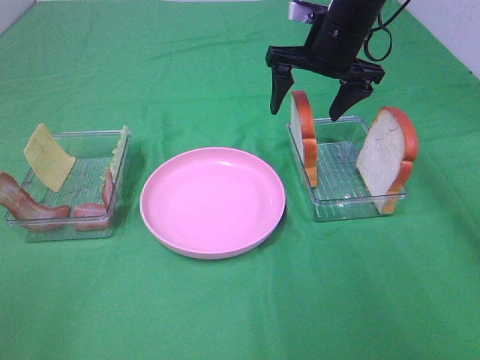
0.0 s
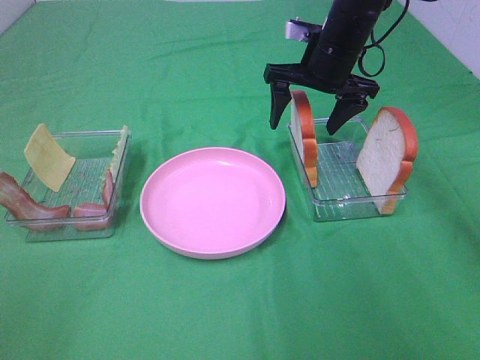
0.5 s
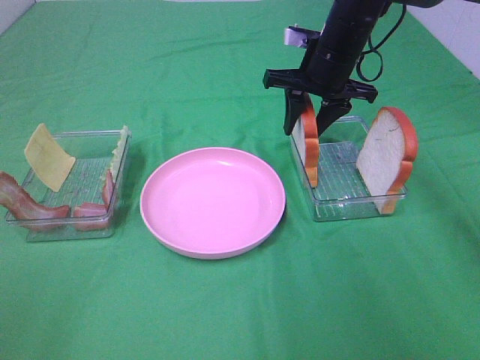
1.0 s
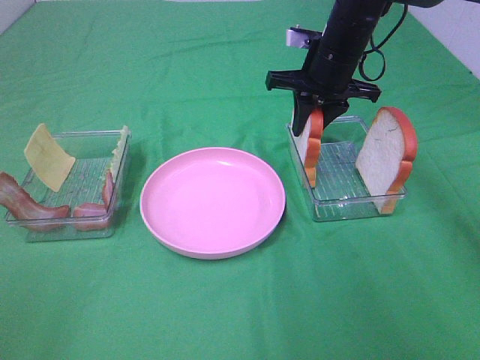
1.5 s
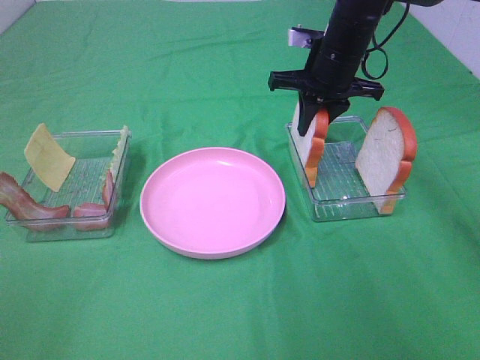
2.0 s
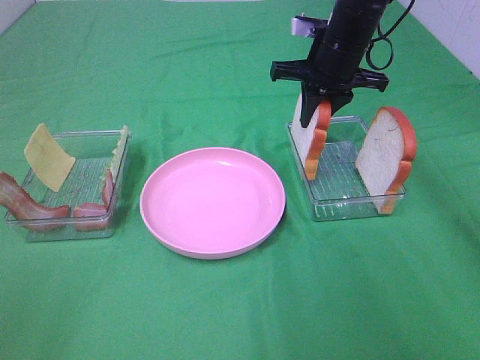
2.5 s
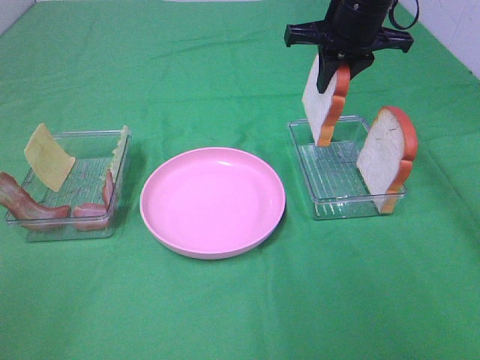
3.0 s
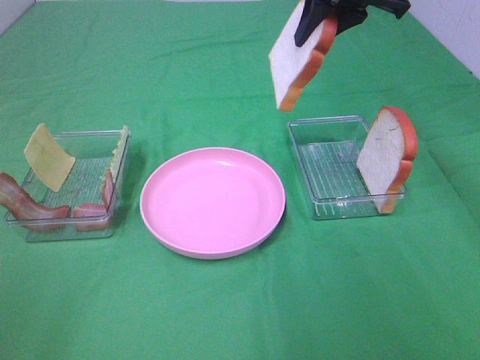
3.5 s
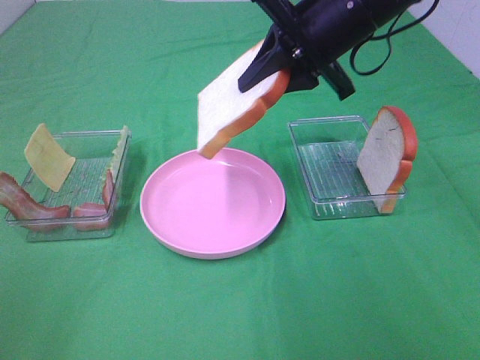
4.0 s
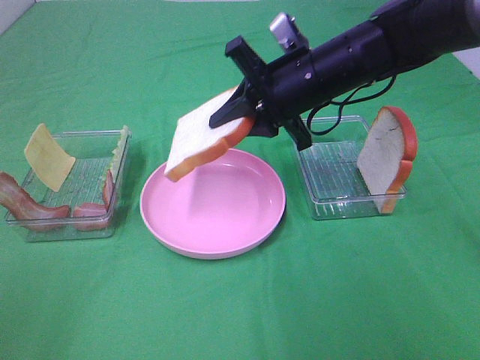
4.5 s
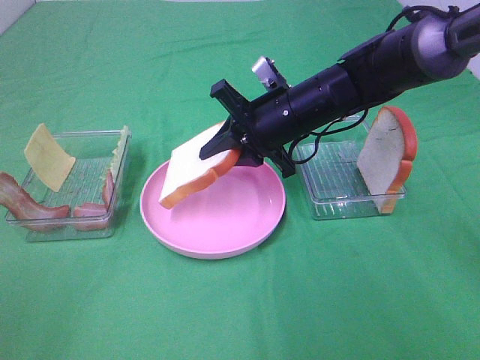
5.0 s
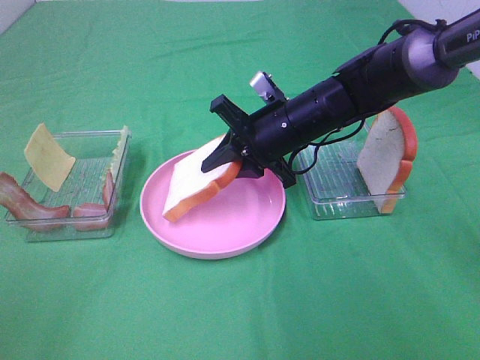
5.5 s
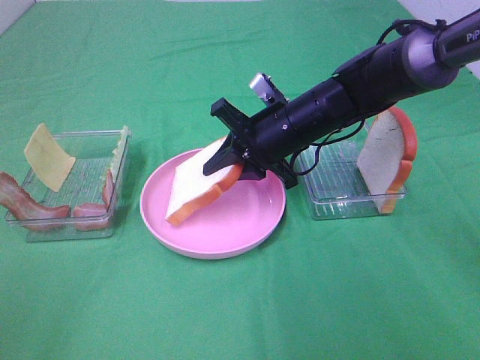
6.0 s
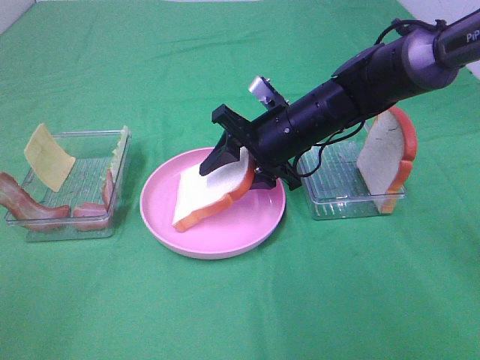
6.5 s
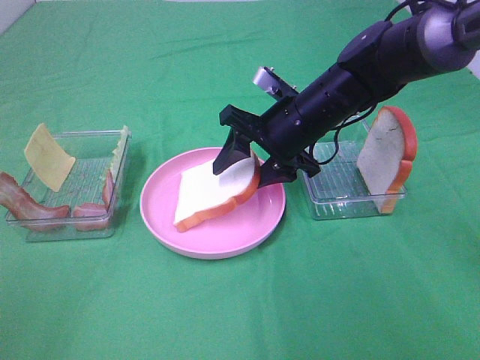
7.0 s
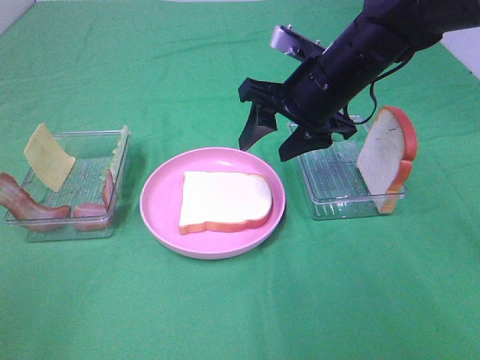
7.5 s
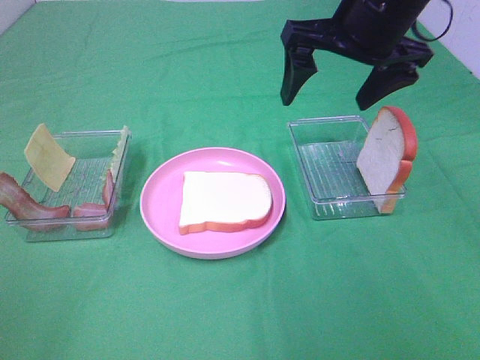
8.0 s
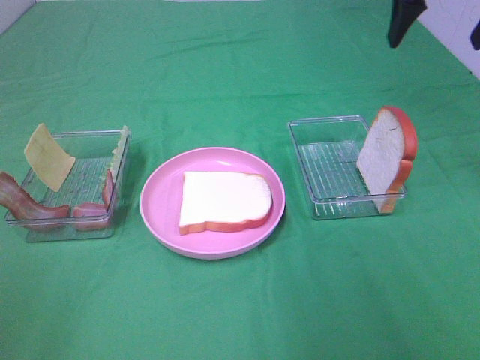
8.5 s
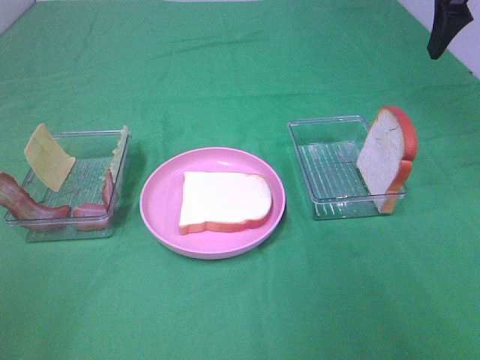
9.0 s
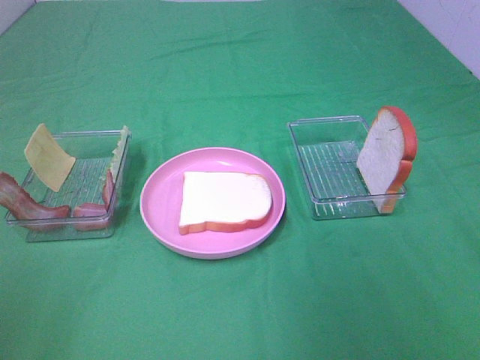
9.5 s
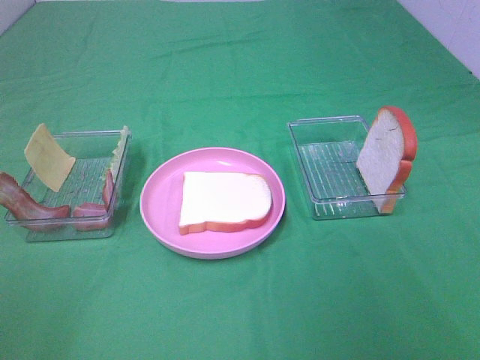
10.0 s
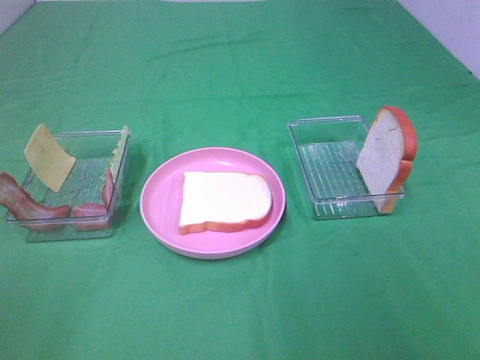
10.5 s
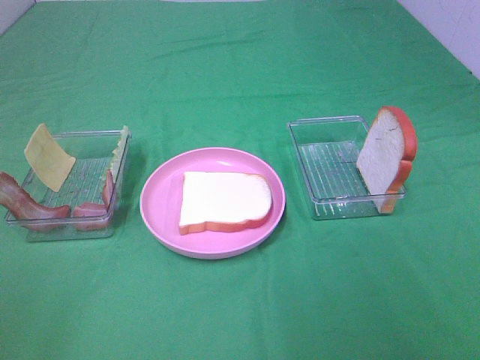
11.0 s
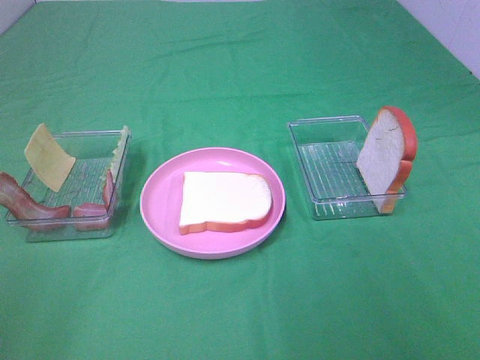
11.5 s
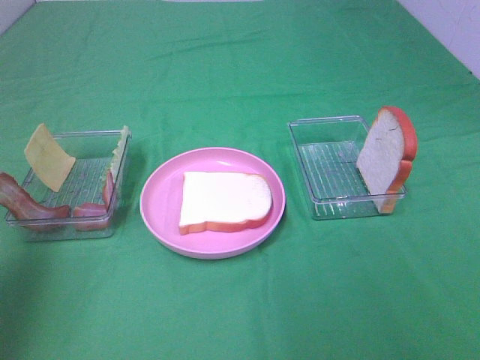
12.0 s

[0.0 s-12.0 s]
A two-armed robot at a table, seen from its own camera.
Task of the whole recording: Make sandwiches.
Step, 0.0 to 2.0 s: Right hand:grab the bread slice.
Step, 2.5 to 7.0 s: Right hand:place the bread slice on the plate.
0.0 to 2.0 s: The right gripper closes its fingers.
2.0 to 4.0 s: The right gripper moves backward and upward, some 10 cm.
4.0 to 6.0 s: The right gripper shifts roughly 15 cm downward.
6.0 to 8.0 s: The right gripper goes some 15 cm upward, and opens up.
8.0 to 10.0 s: The right gripper heads backward and to the right, covering some 35 cm.
10.0 to 12.0 s: The left gripper goes roughly 20 cm forward.

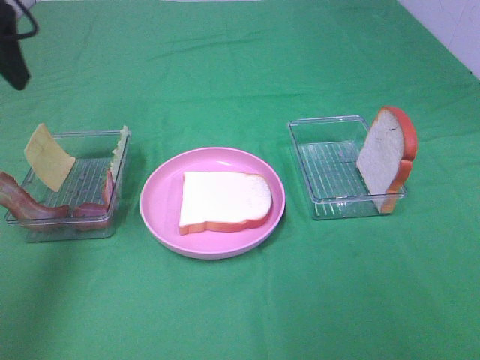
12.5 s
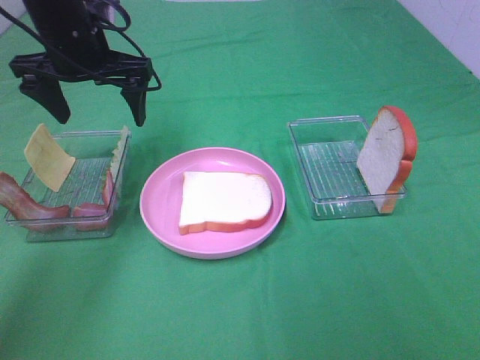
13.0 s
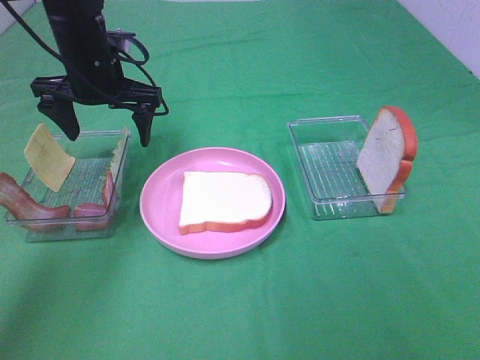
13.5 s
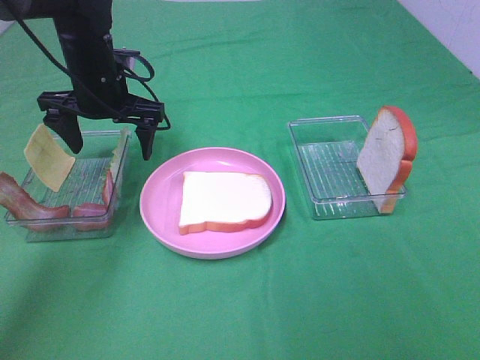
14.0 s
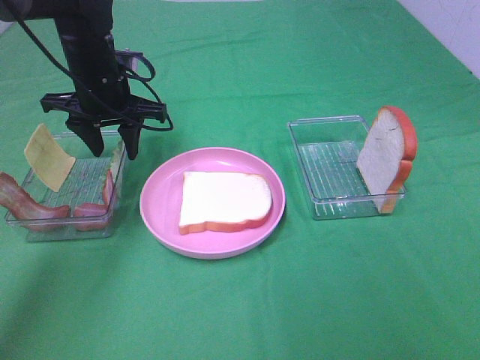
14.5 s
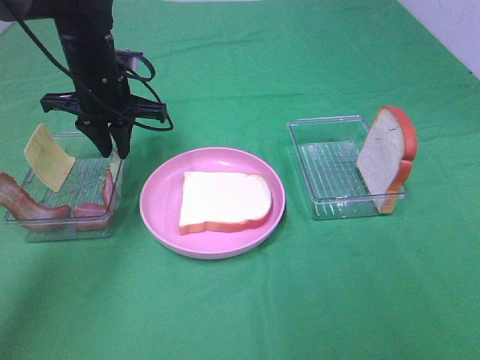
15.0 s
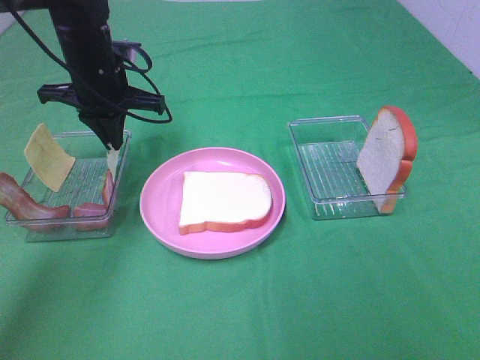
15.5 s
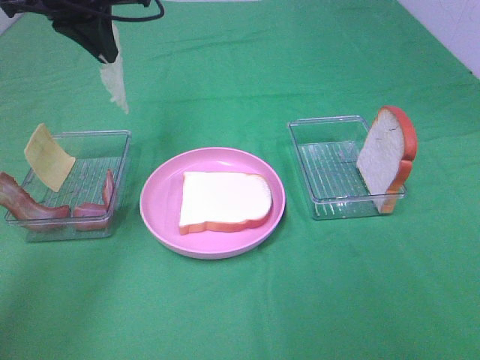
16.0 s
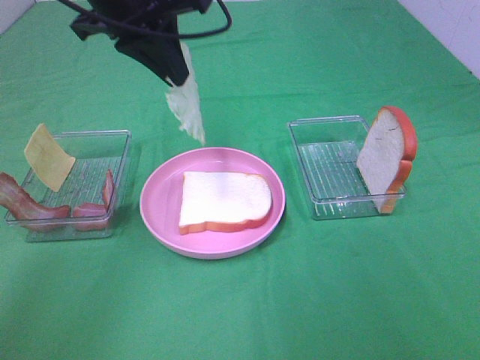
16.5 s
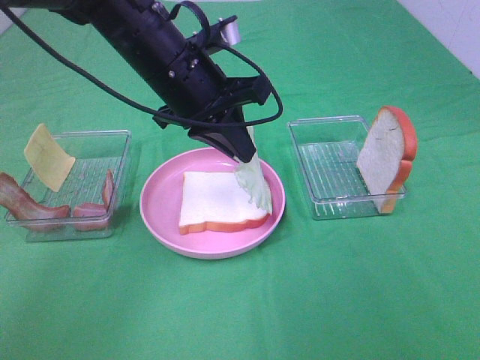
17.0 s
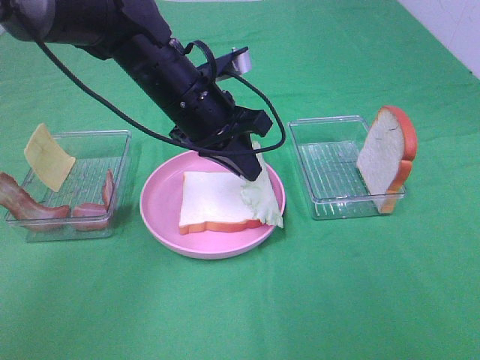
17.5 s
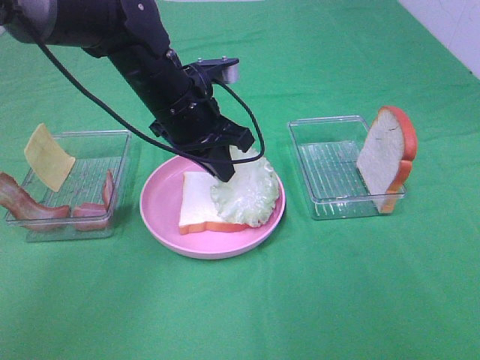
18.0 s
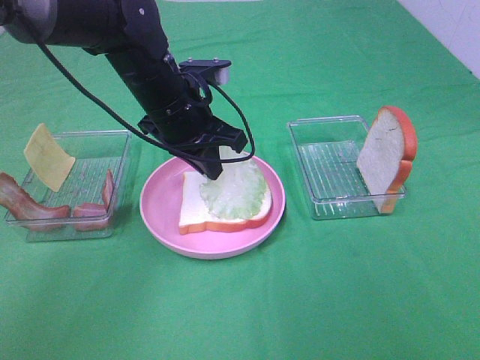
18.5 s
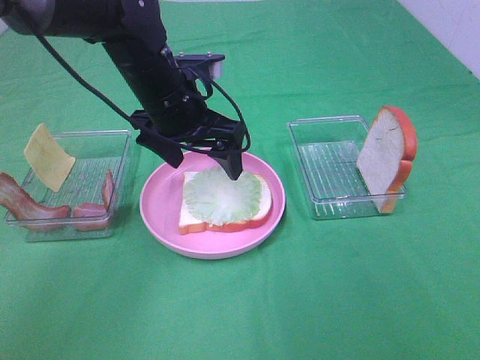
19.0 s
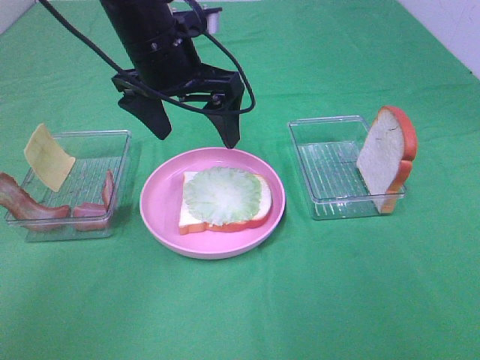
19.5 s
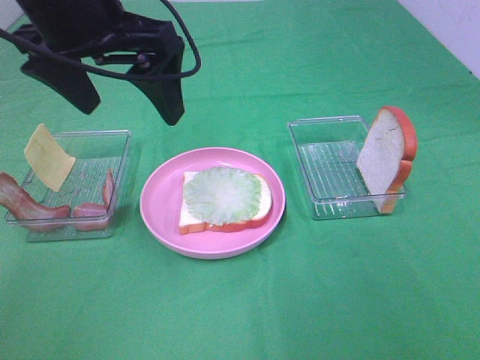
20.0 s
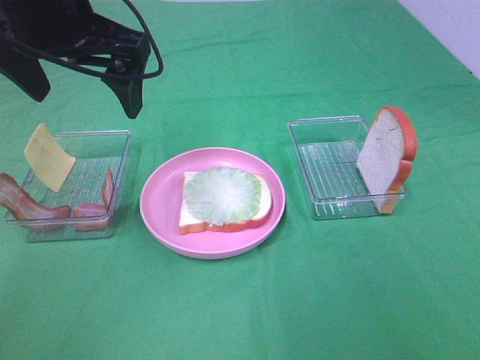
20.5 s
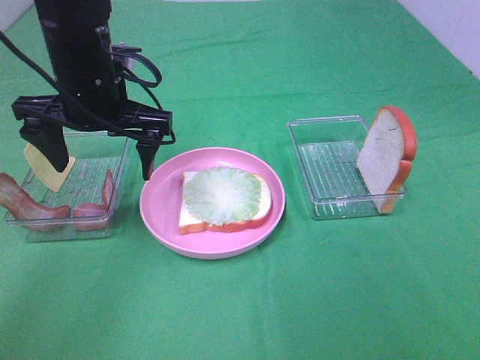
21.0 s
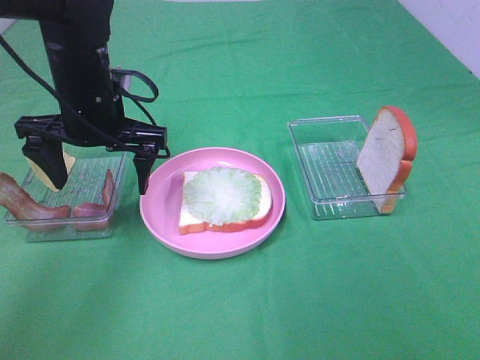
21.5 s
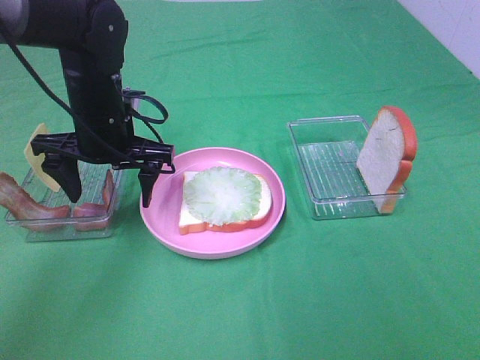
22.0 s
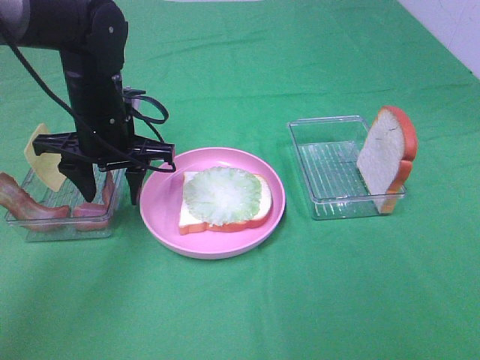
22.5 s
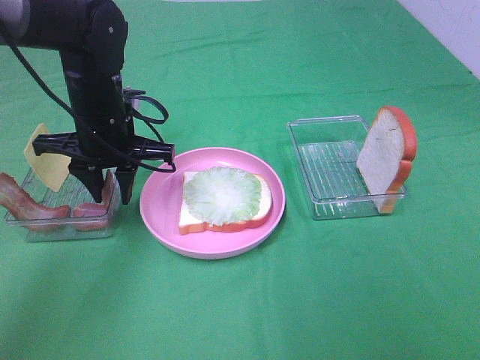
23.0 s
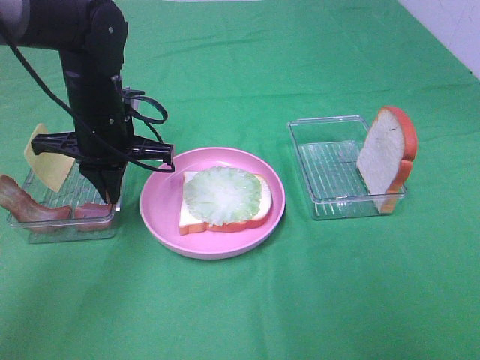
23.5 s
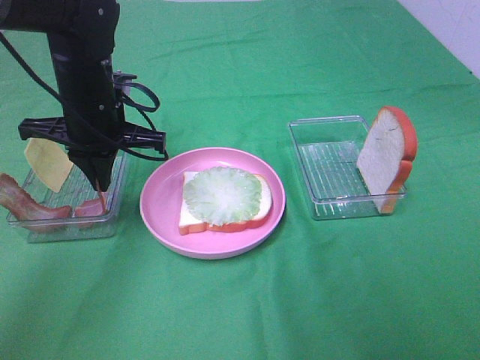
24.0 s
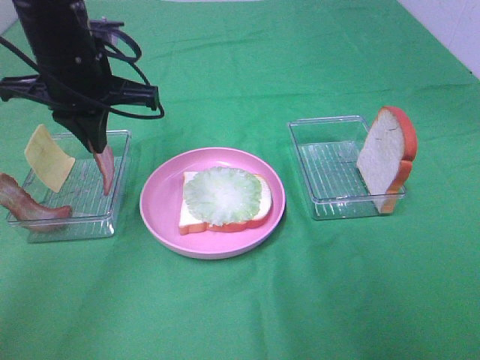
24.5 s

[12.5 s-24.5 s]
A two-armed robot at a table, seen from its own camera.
Task of the whole recording: Make sandwiches.
Step, 12.5 to 15.0 s: Left hand:grab the lettuce slice.
Step, 15.5 to 19.0 s: Left hand:place the lettuce slice on the bread slice.
Step, 19.5 to 23.5 s: Left hand:grab the bacon.
12.5 to 14.5 s: The left gripper moves downward, forward and to the right, about 20 cm, and closes its fingers.
14.5 to 16.5 s: The left gripper travels upward, backward and to the right by about 15 cm, and closes.
16.5 to 18.5 s: The left gripper moves downward, roughly 15 cm.
18.5 to 20.5 s: The left gripper shifts approximately 15 cm upward, to the left and backward, and opens up.
20.5 to 22.5 s: The left gripper is displaced downward by approximately 15 cm, and closes its fingers.
22.5 to 24.5 s: The left gripper moves upward, some 10 cm, and closes.

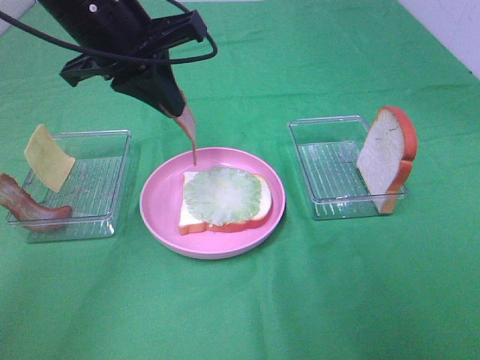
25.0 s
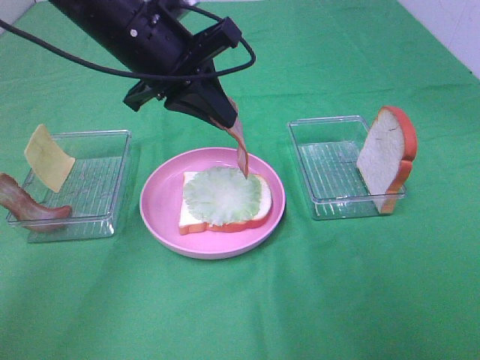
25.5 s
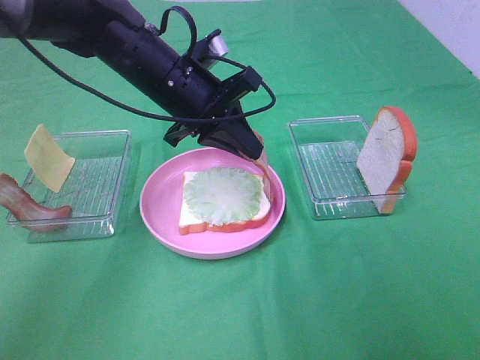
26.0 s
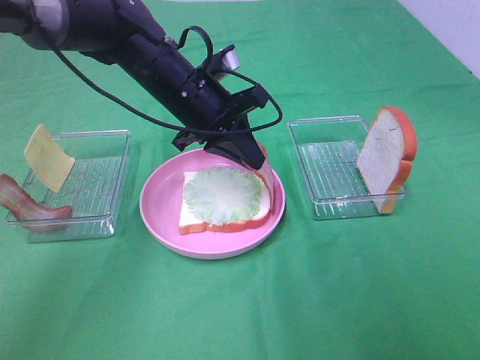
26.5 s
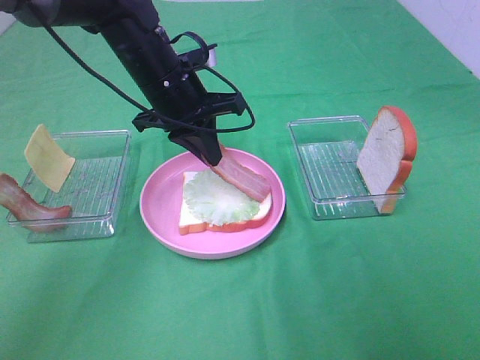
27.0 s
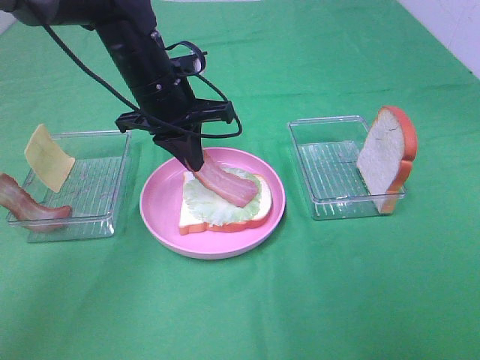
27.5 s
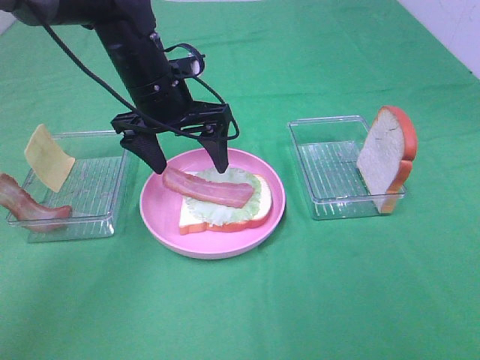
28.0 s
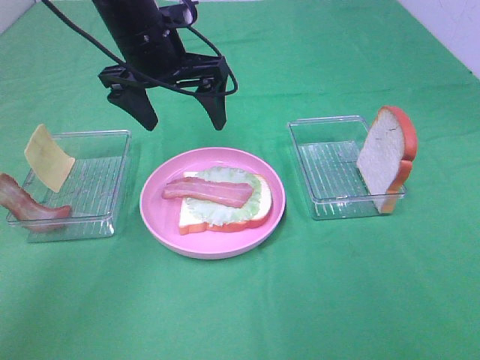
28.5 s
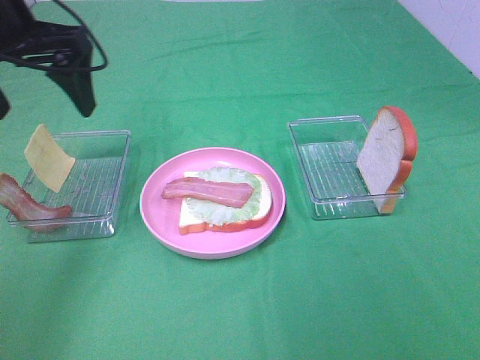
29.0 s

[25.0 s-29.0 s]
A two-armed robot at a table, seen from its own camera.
Task of the whole recording: Make sandwiches.
Step, 25.0 to 28.0 s: Left hand:place bacon on lettuce slice.
25.0 to 27.0 s: The left gripper goes roughly 10 cm downward and forward.
27.0 to 29.0 s: The left gripper goes about 20 cm to the left, upward and backward, and opens its fingers.
